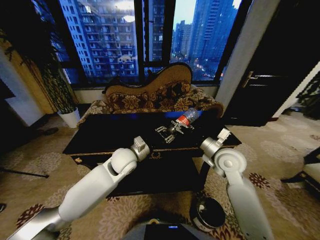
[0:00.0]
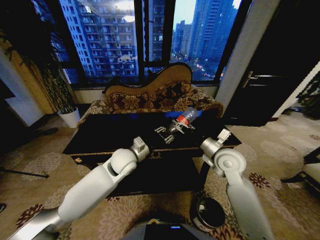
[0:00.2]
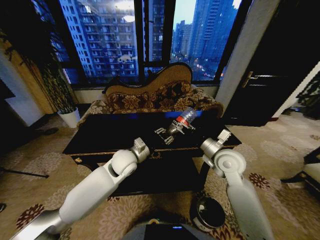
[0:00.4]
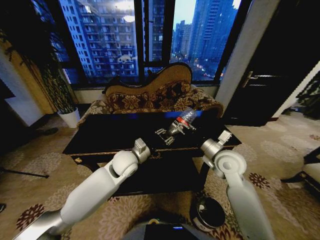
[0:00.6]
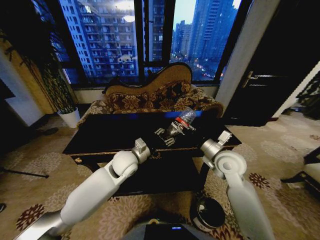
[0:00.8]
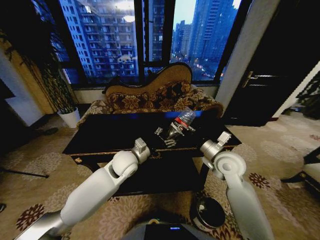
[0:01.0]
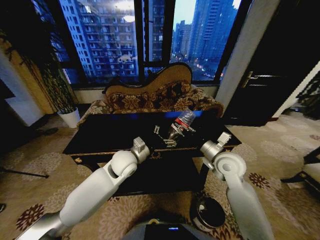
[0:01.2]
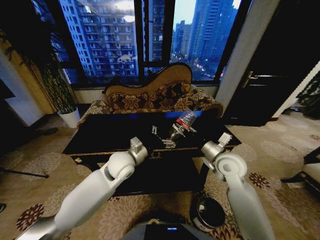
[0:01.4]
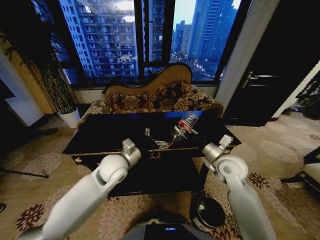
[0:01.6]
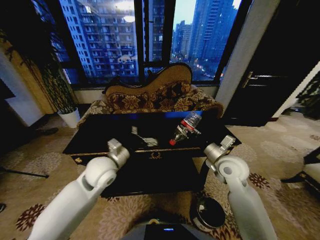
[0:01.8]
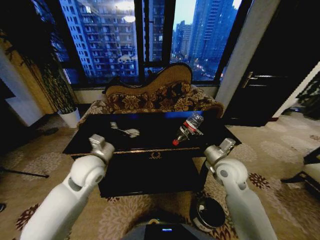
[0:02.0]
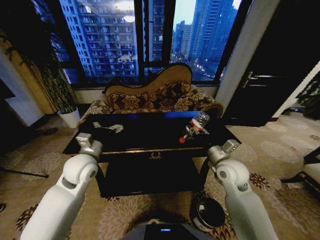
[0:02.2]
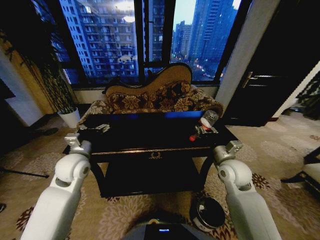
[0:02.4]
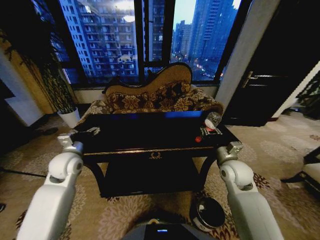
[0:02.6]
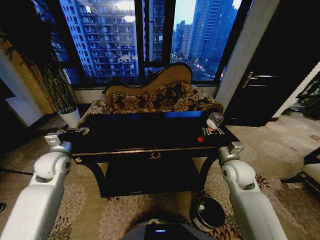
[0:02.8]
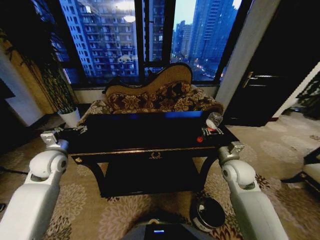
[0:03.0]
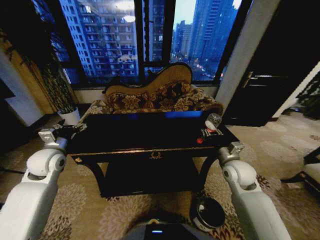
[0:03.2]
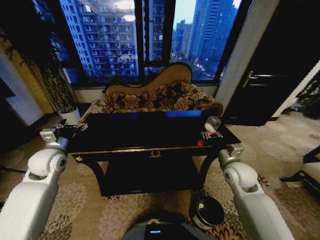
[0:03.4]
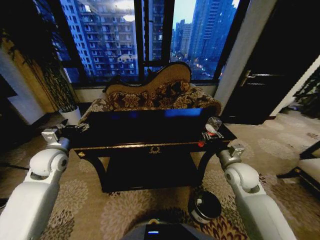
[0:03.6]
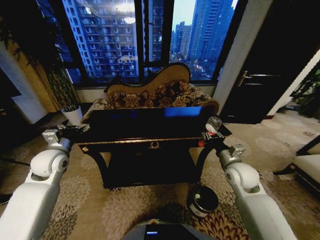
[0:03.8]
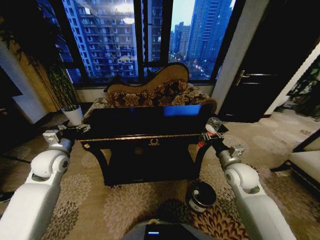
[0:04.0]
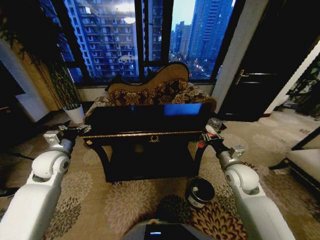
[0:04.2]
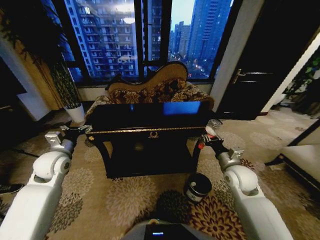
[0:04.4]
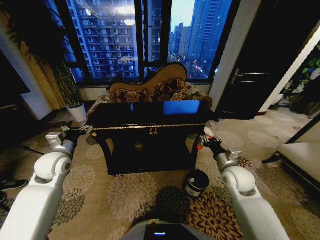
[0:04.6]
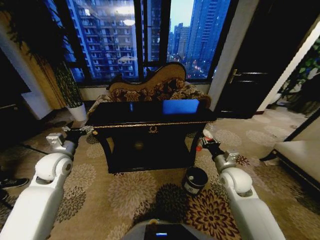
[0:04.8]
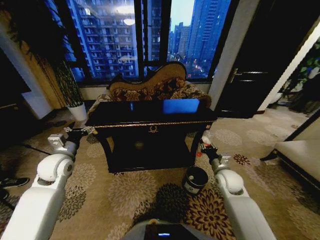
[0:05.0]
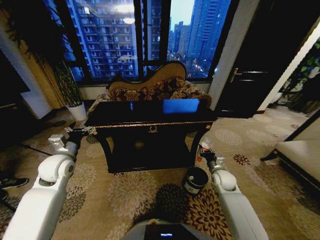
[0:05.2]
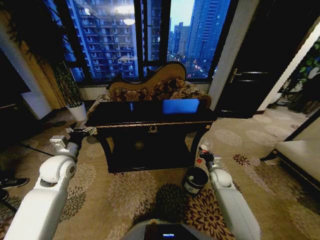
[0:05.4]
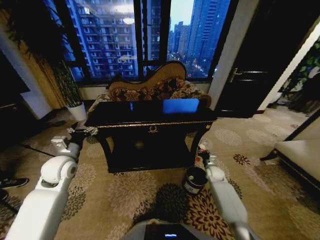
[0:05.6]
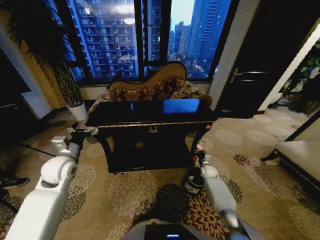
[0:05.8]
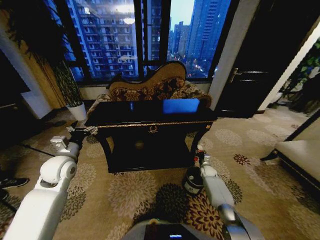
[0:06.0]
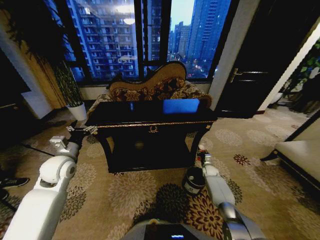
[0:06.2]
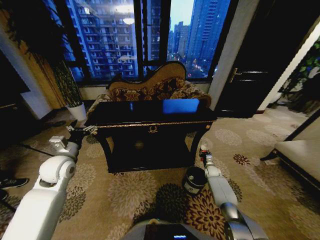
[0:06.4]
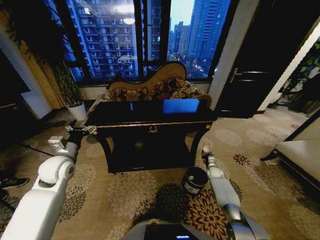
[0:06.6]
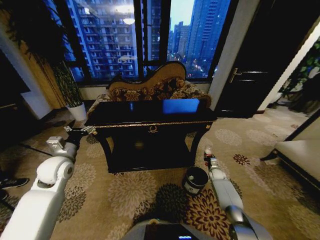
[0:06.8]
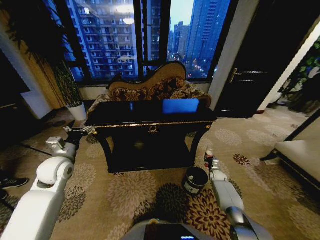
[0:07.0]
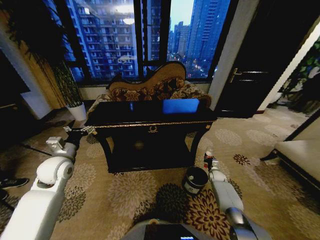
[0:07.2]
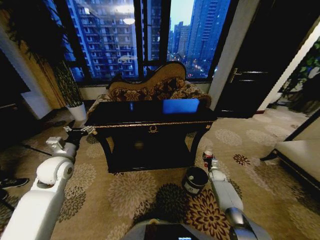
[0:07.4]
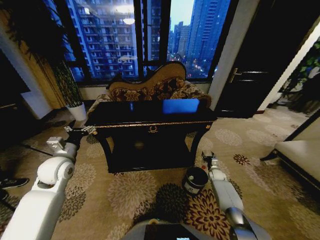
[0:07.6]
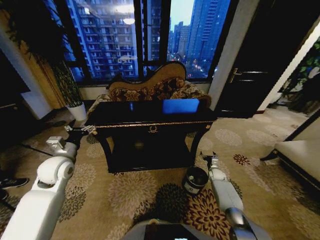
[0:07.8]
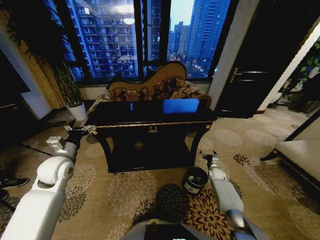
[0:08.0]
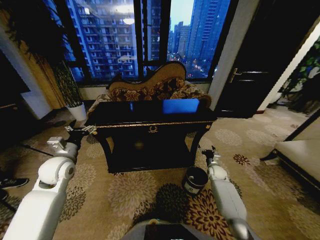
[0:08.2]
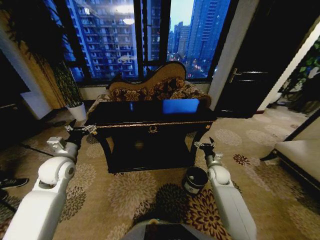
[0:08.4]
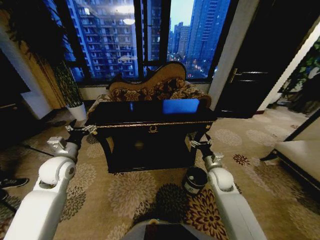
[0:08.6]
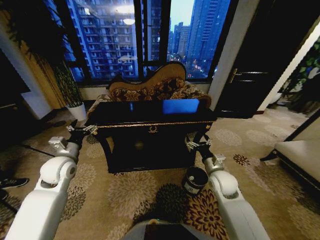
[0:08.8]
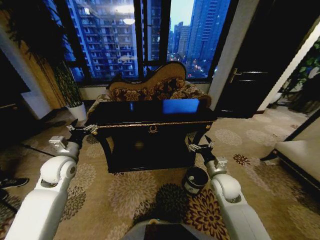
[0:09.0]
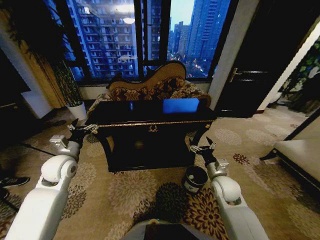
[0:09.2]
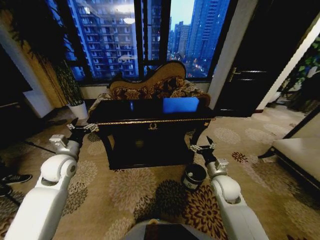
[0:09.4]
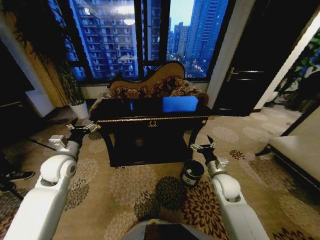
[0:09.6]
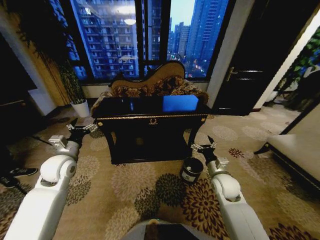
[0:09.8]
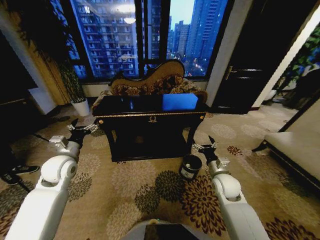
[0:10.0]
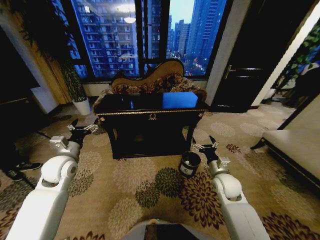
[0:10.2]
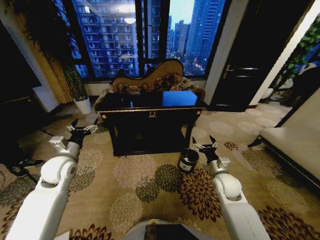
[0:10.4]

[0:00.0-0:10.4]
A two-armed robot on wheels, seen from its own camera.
Task of the whole recording: Move to the front of the table and place the trash on the table into the trash bin.
0:00.0 to 0:01.4: The right gripper closes its fingers; the left gripper opens its fingers.
0:01.4 to 0:03.0: The left gripper heads to the left, covering approximately 25 cm; the right gripper travels to the right by some 5 cm.
0:04.4 to 0:06.0: The right gripper moves downward and forward, approximately 30 cm.
0:06.0 to 0:07.4: The right gripper goes approximately 5 cm to the right.
0:07.4 to 0:09.0: The right gripper moves upward, to the left and backward, roughly 30 cm, and opens.

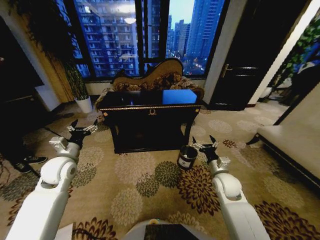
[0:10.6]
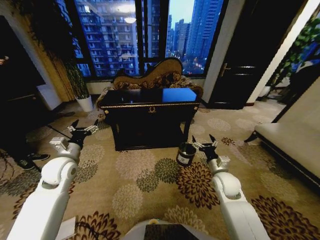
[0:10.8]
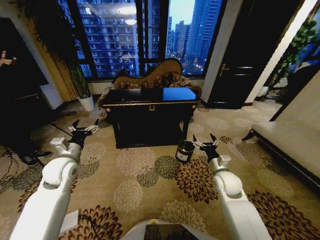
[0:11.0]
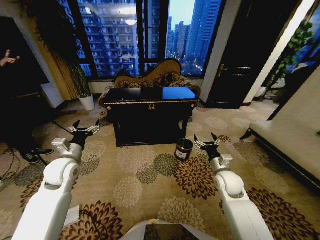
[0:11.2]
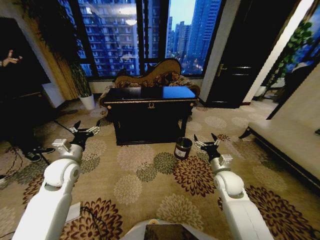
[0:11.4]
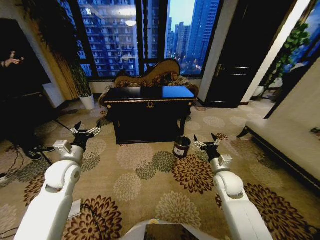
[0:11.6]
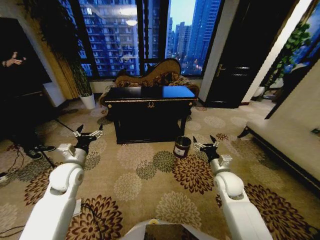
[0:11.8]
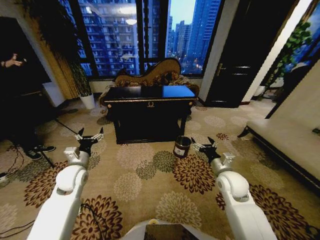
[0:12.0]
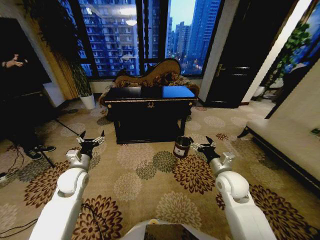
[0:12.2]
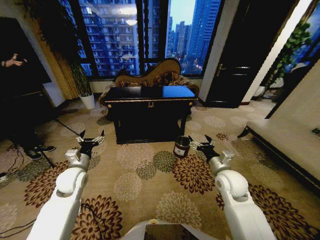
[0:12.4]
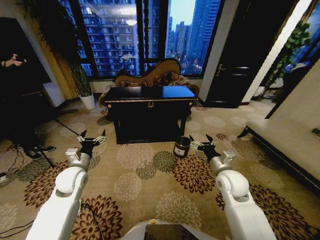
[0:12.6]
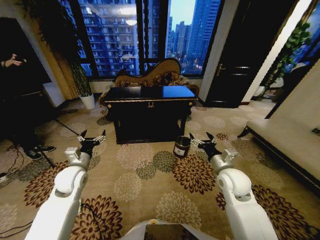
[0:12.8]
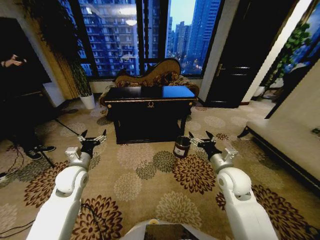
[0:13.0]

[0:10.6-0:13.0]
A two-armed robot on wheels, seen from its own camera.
Task of the whole recording: Move to the front of the table and place the trash on the table into the trash bin.
0:11.8 to 0:13.0: The right gripper shifts some 5 cm upward.

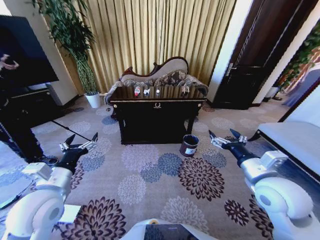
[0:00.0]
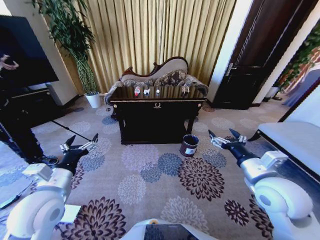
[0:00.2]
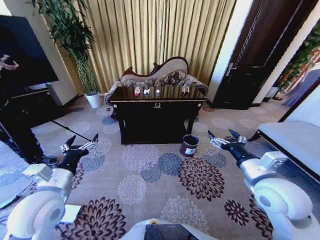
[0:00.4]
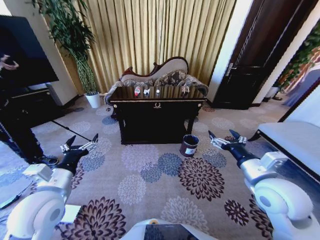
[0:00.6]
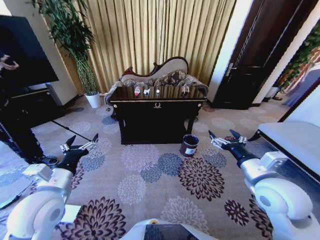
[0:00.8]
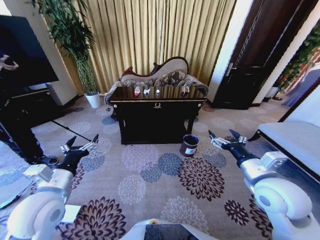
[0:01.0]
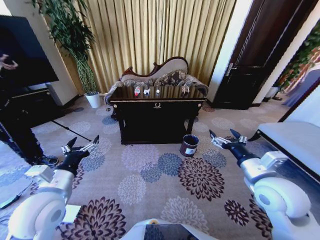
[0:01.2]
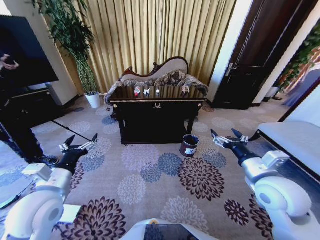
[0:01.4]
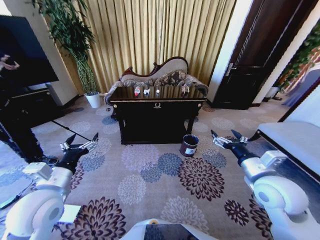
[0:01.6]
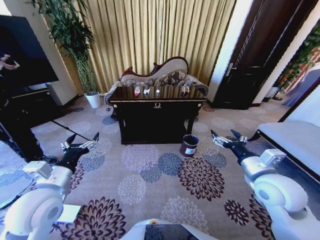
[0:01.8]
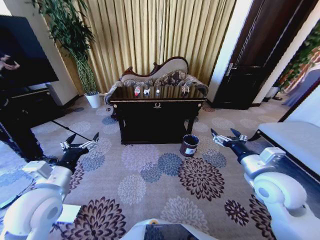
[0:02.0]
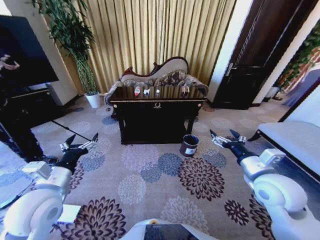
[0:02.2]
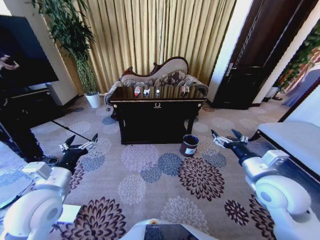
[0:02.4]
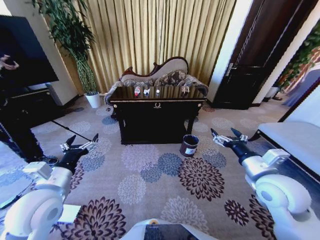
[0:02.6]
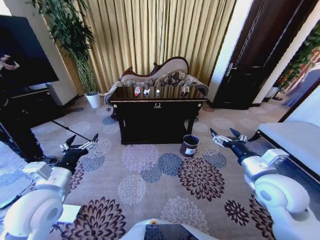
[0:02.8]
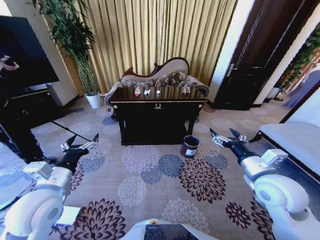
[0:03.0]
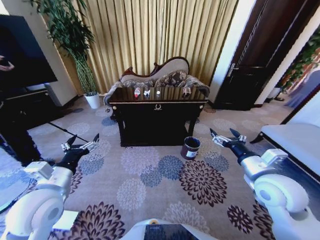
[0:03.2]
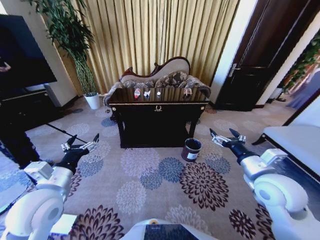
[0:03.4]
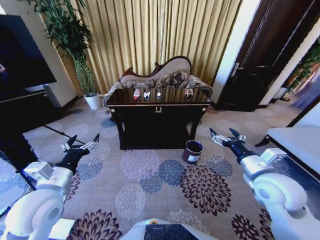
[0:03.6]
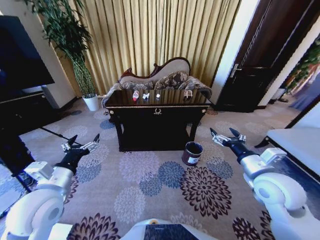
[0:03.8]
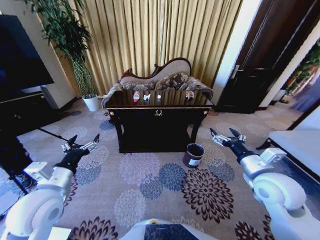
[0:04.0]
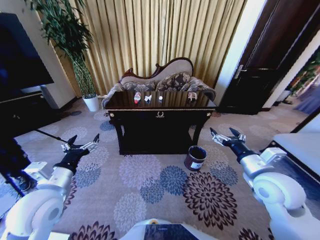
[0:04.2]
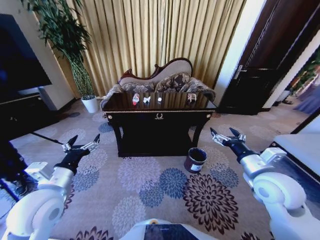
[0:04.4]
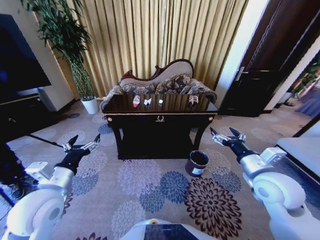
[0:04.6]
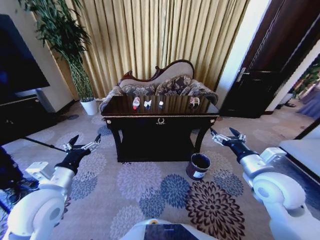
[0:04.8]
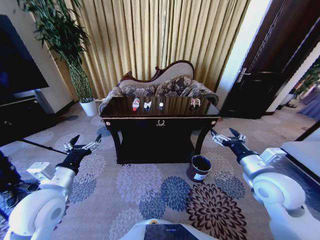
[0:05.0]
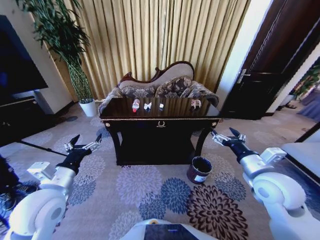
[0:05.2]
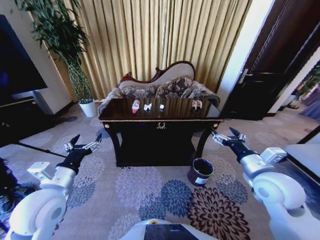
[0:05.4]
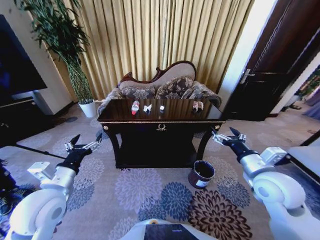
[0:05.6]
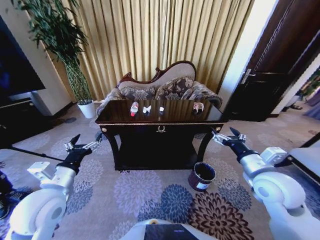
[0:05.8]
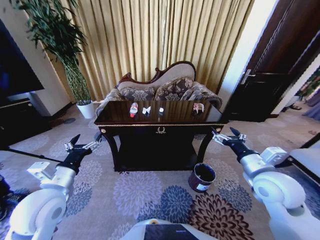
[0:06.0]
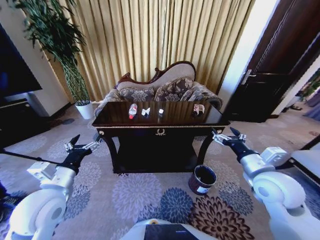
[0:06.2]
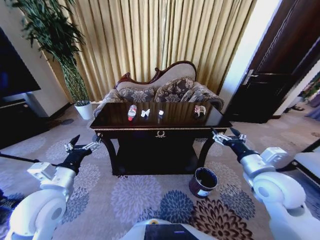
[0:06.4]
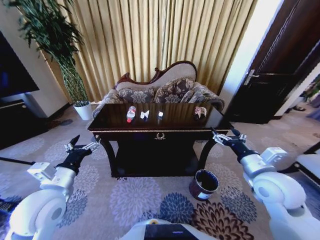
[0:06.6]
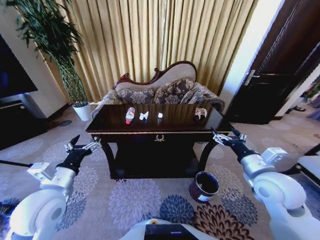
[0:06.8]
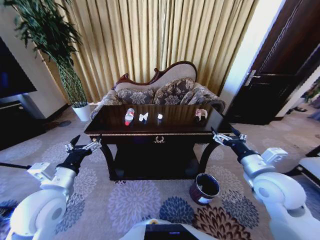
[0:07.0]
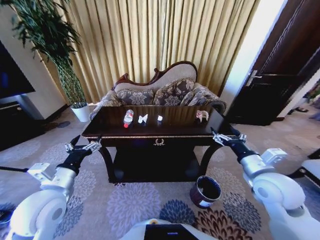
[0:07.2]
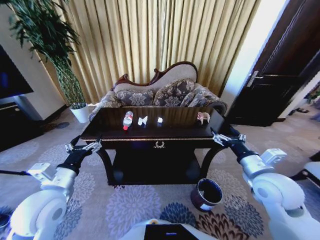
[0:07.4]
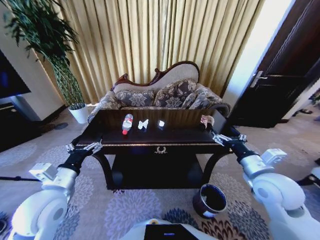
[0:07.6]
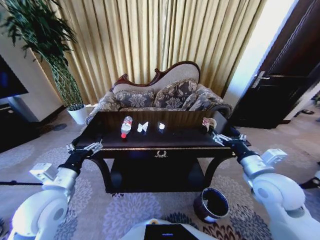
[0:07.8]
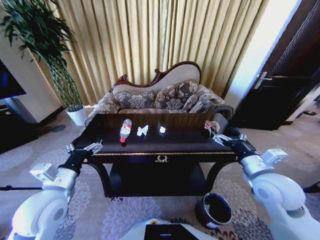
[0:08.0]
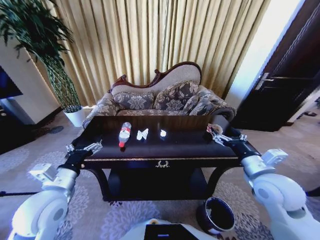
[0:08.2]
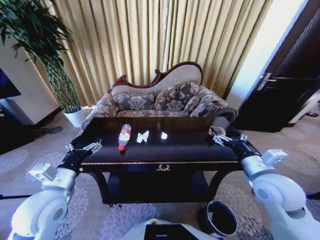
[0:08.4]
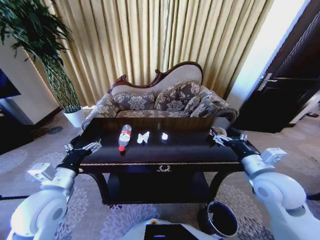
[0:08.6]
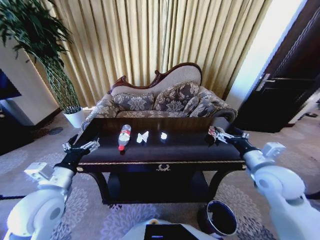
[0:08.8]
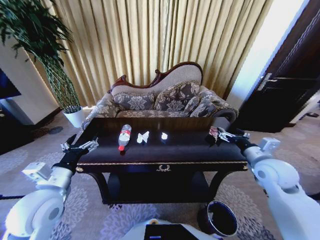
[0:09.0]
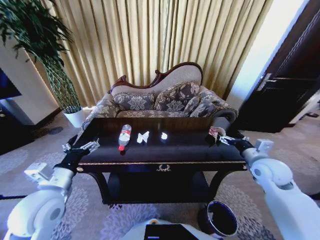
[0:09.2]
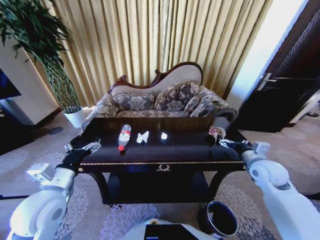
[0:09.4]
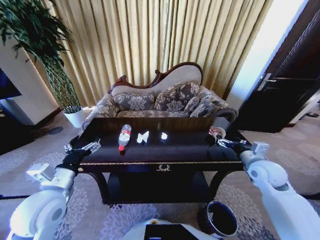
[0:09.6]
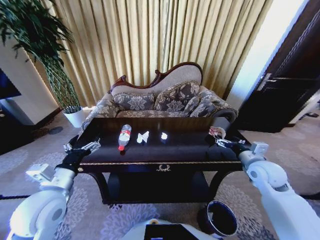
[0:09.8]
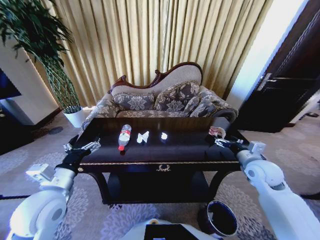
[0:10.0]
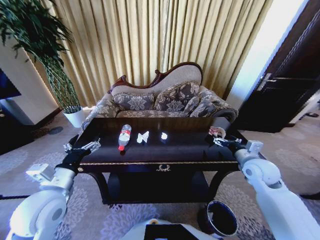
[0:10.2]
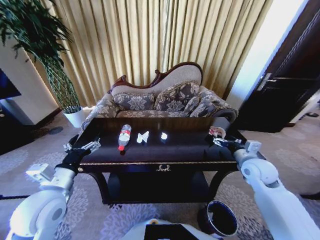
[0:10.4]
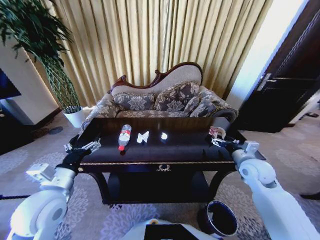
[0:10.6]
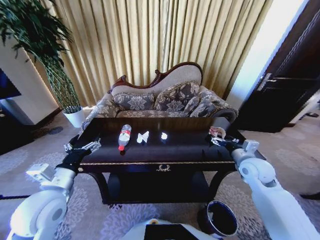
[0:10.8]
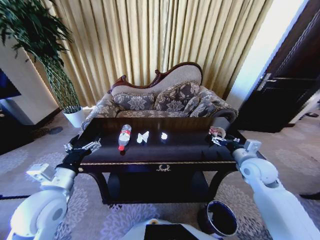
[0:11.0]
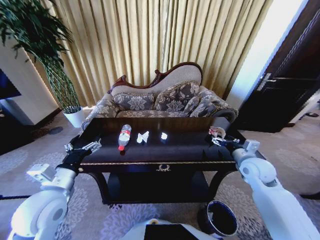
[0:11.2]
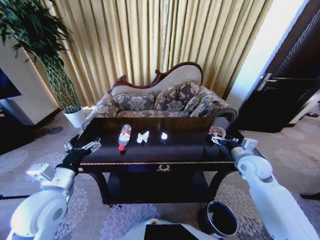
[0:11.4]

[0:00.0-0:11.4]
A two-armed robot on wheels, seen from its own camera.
Task of the whole recording: Move to the front of the table and place the trash on the table into the trash bin.
0:01.4 to 0:02.8: The grippers stay close to where they were, moving slightly.
0:08.6 to 0:10.0: The right gripper moves forward, to the right and downward, about 10 cm.
0:10.0 to 0:11.4: There are only small adjustments of the grippers.
